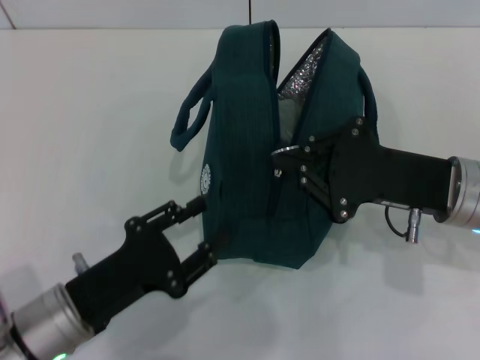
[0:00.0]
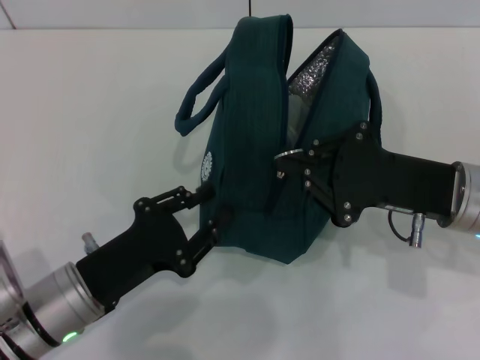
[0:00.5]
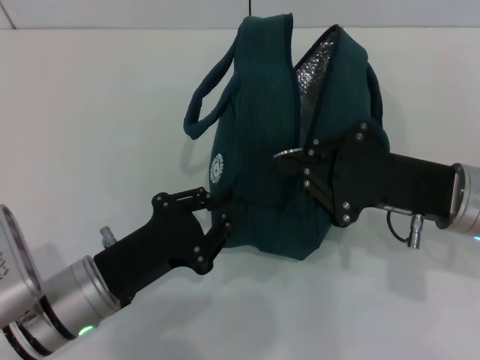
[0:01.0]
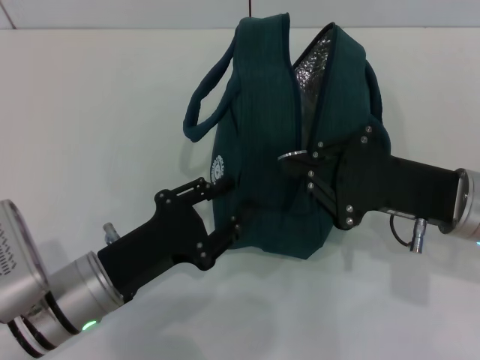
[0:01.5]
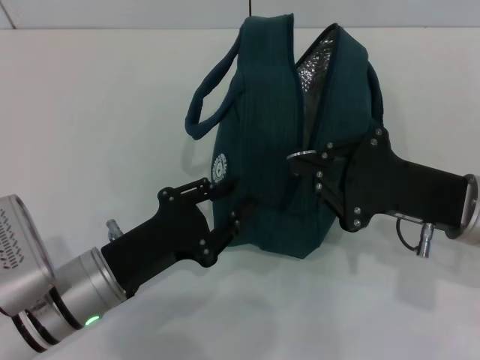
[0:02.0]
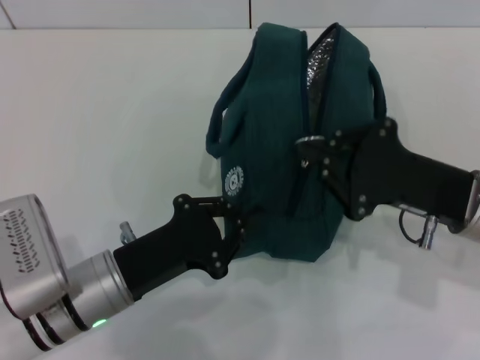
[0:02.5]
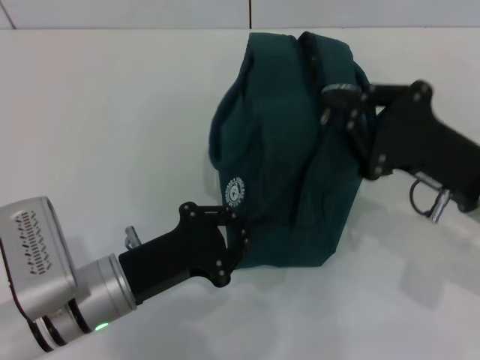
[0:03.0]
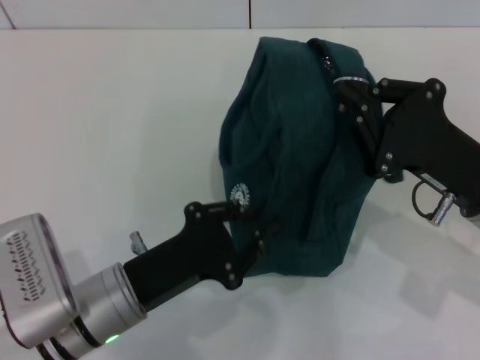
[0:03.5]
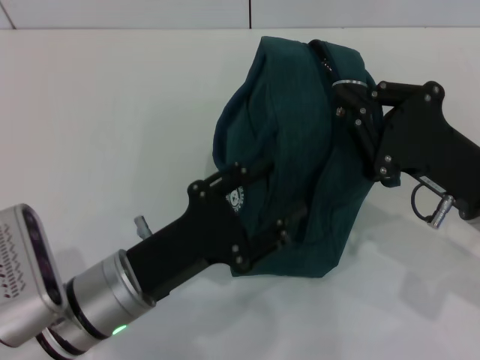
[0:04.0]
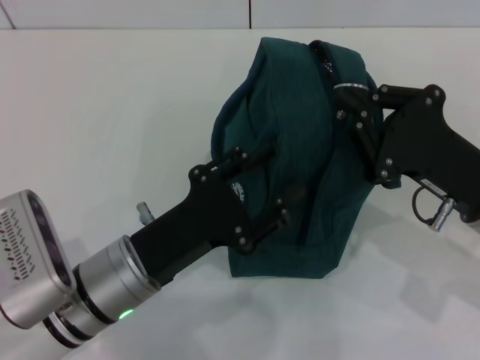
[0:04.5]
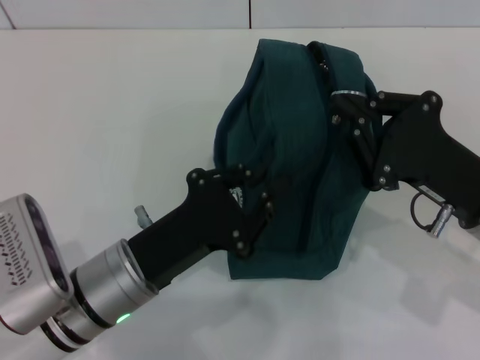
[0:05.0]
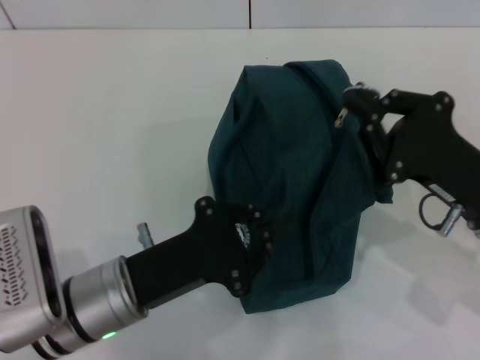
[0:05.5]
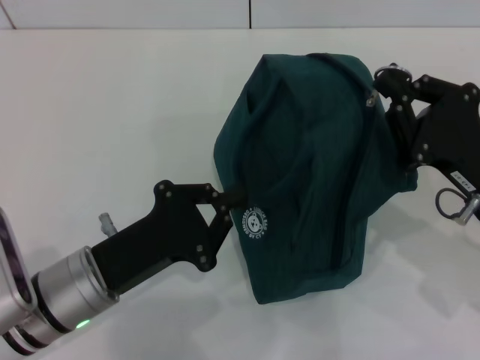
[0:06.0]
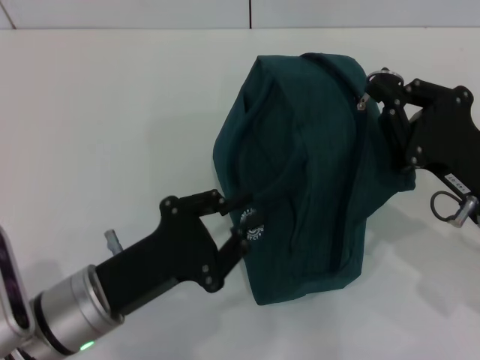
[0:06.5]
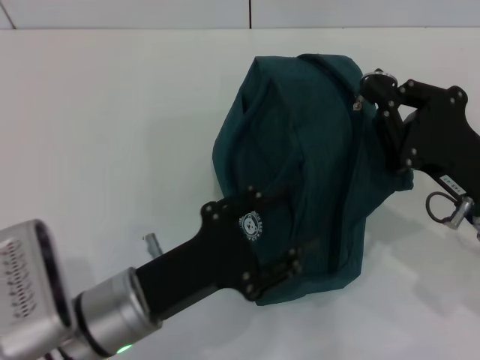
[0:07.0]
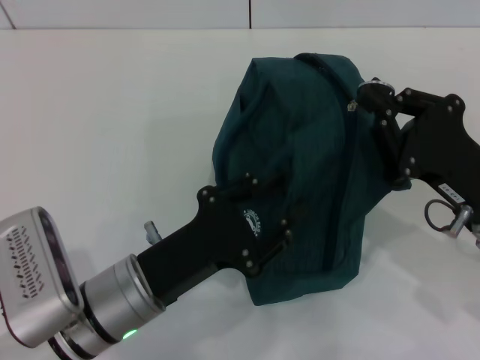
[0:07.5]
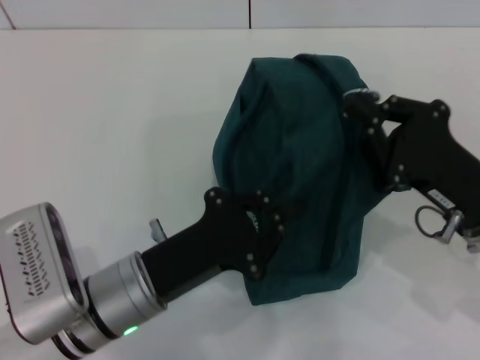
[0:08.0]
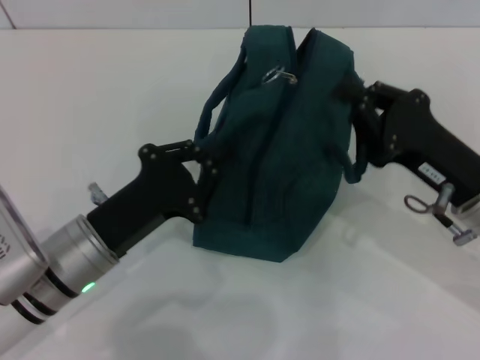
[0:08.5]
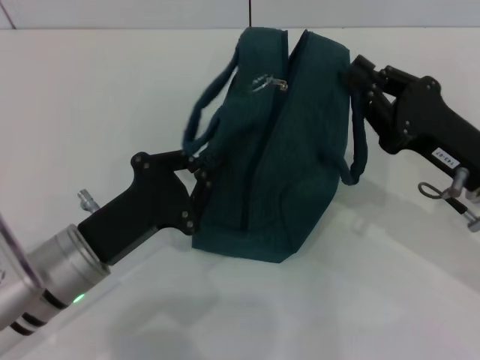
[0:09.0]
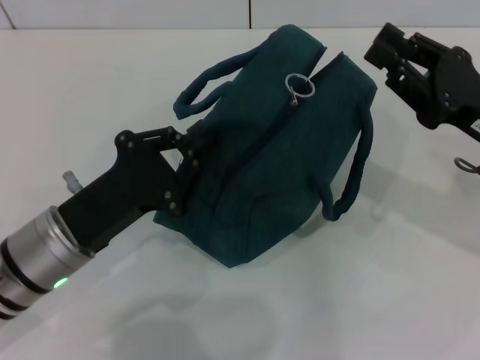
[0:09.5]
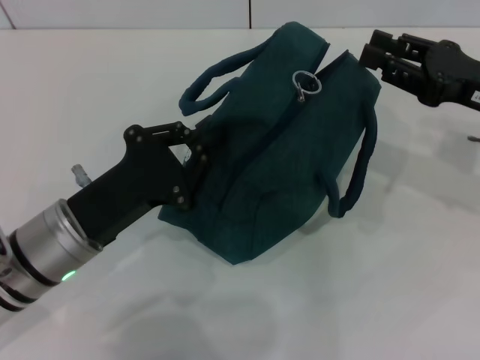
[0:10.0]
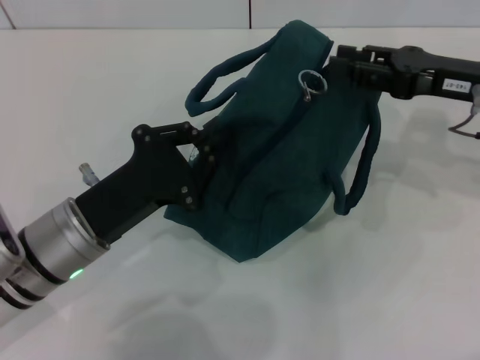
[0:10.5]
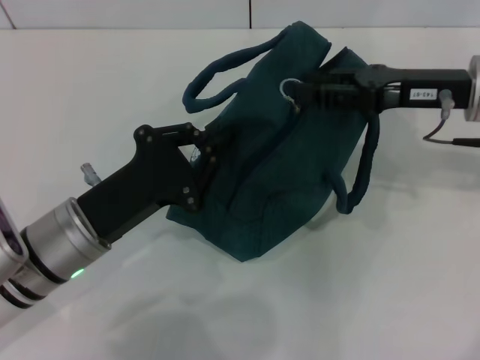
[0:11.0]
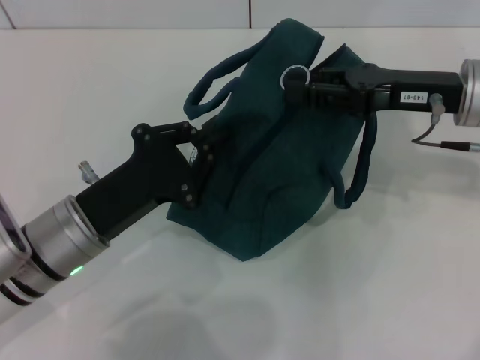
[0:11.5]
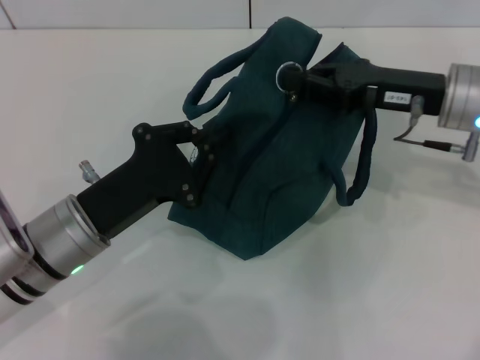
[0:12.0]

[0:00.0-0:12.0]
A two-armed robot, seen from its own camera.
0:00.0 to 0:02.0: The grippers make only small movements.
0:02.0 to 0:04.0: The left gripper closes, then reopens.
0:04.0 to 0:06.0: The left gripper closes up.
0:08.0 to 0:10.0: The right gripper moves forward, upward and to the right, about 10 cm. Meanwhile the left gripper travels to the left by some 5 cm.
0:10.0 to 0:12.0: The right gripper shifts some 5 cm to the left.

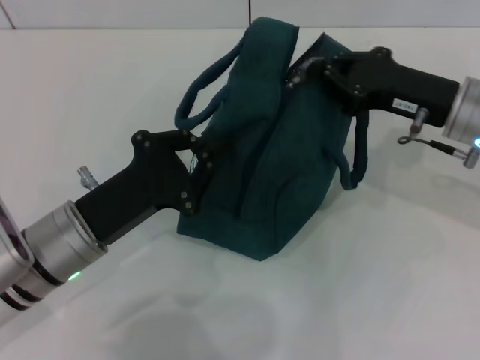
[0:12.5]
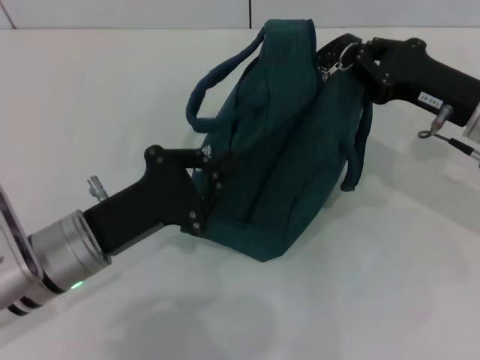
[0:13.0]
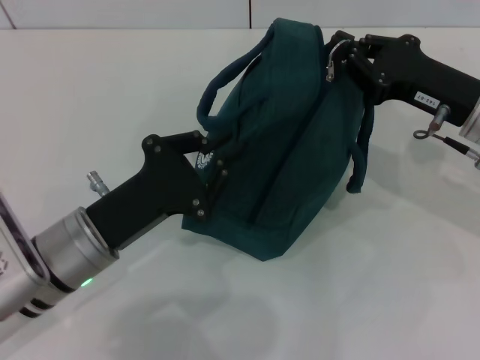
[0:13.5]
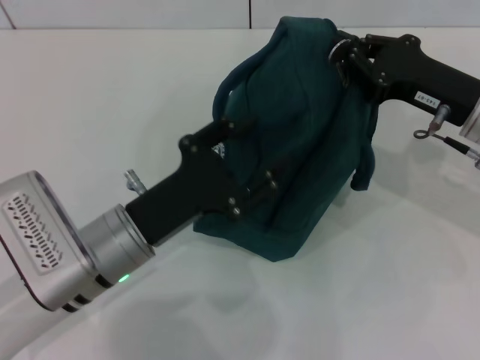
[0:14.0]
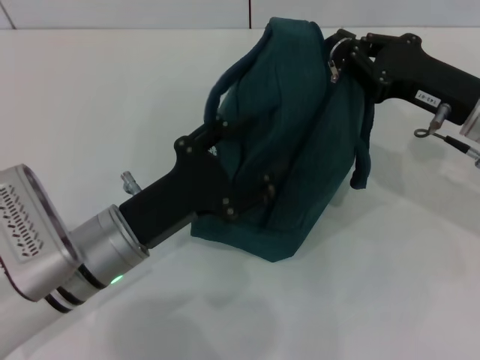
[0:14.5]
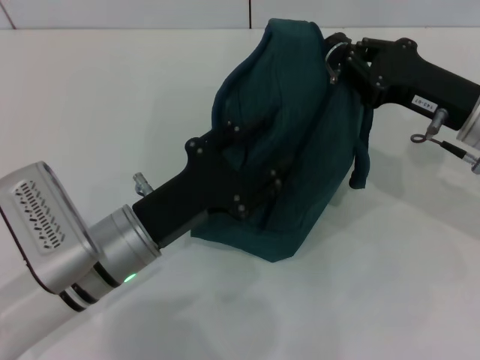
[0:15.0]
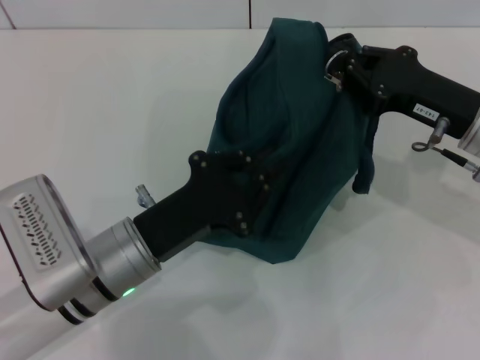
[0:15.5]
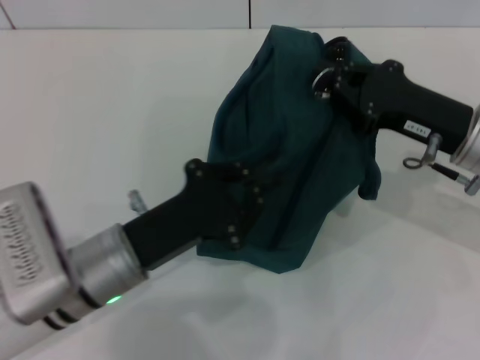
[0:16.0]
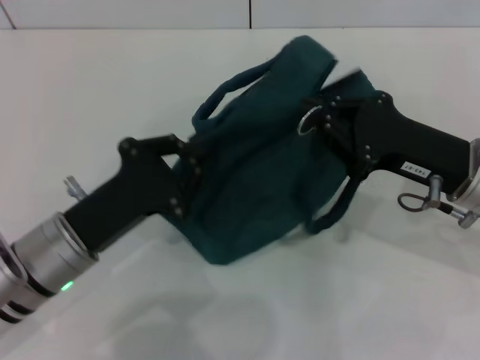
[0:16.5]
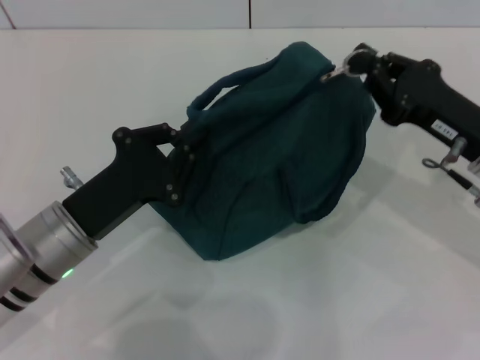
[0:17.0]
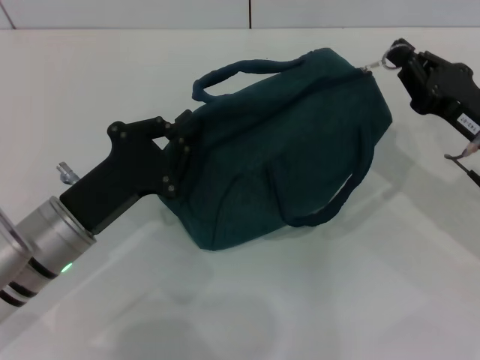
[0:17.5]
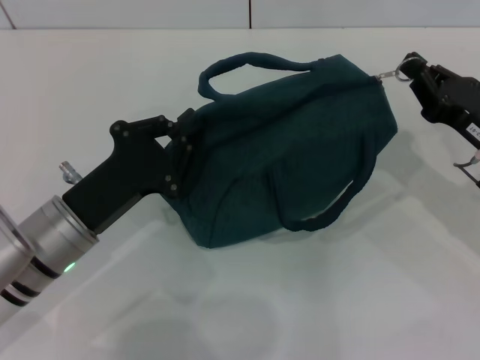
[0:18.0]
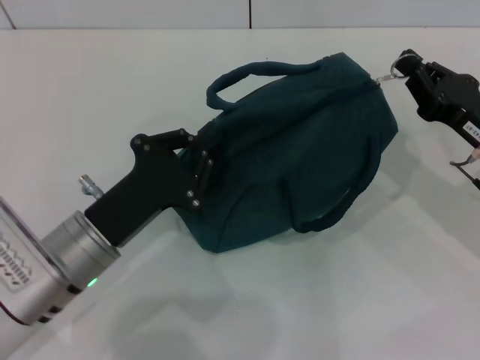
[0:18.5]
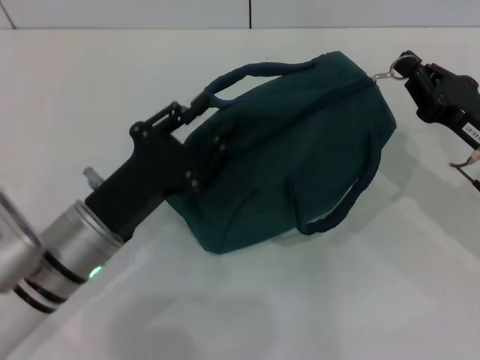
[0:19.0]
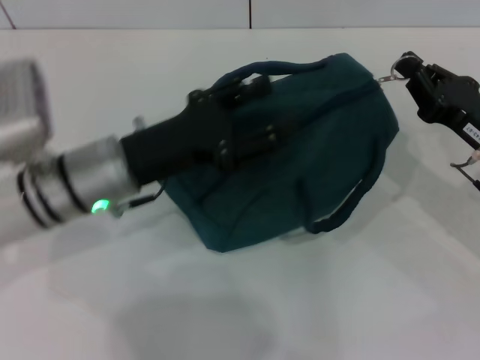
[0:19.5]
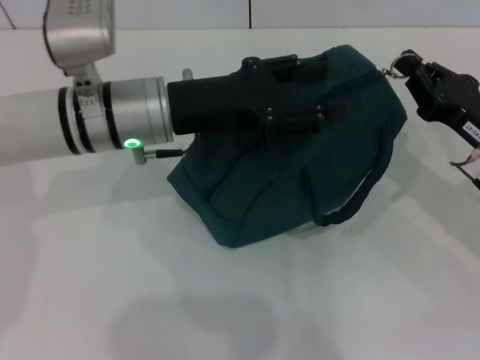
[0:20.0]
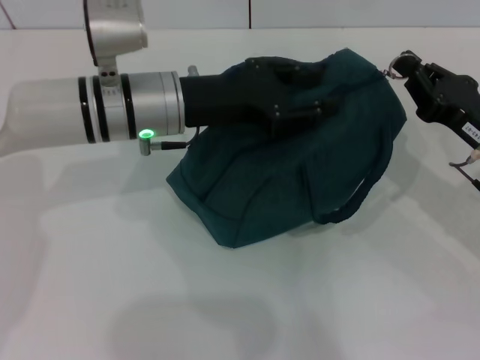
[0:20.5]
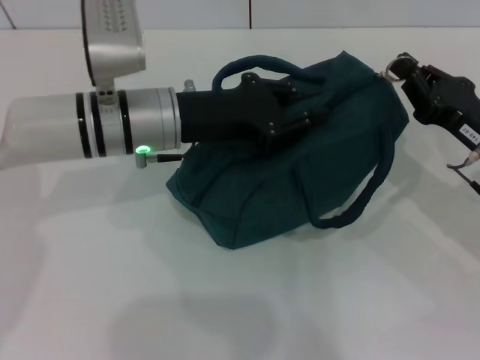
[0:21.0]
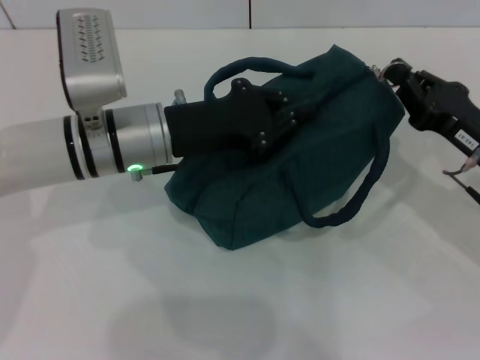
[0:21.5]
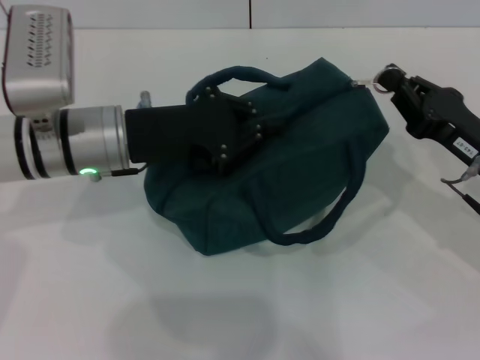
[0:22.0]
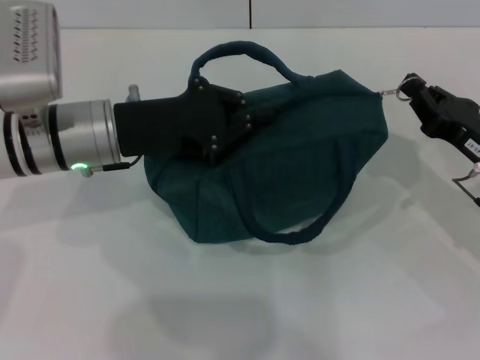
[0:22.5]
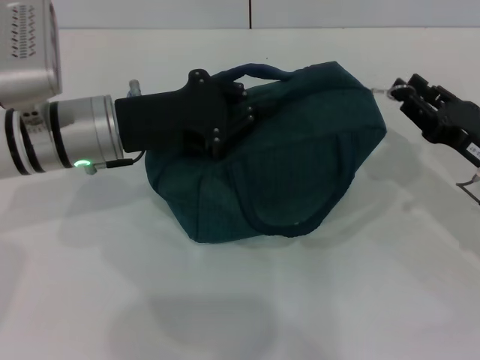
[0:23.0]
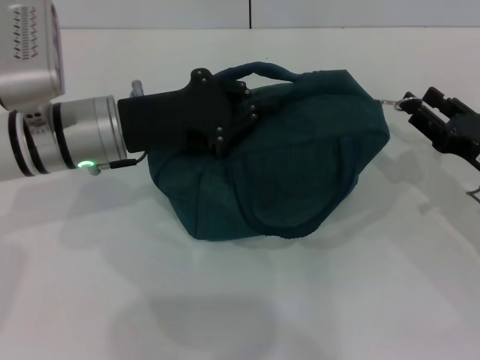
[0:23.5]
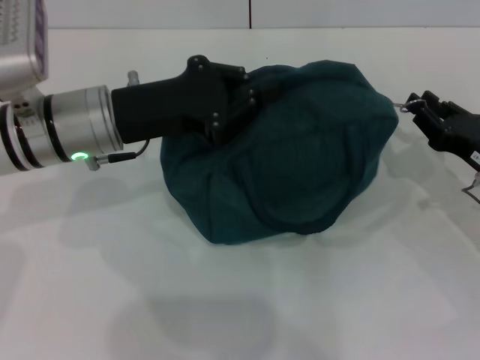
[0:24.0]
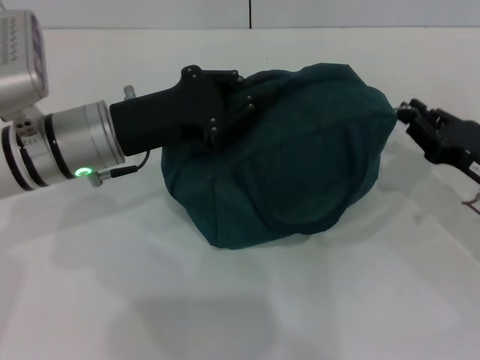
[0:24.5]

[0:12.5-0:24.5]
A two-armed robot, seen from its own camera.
0:12.5 to 0:14.5: The left gripper opens up.
0:14.5 to 0:16.5: The left gripper closes its fingers; the right gripper moves backward, about 5 cm.
0:16.5 to 0:18.5: The right gripper heads to the right, covering about 5 cm.
0:18.5 to 0:20.5: The left gripper heads forward, upward and to the right, covering approximately 15 cm, and opens.
0:20.5 to 0:22.5: The left gripper goes approximately 5 cm to the left, and closes up.
0:22.5 to 0:24.5: The right gripper opens, then closes again.

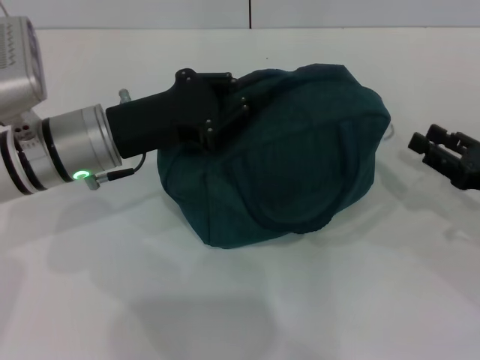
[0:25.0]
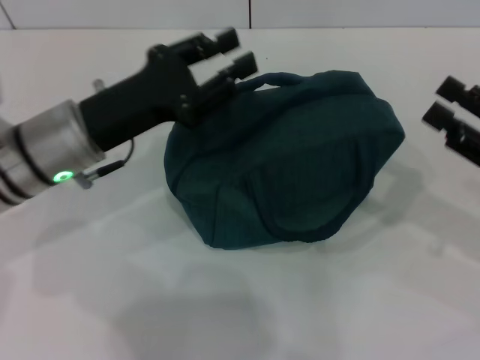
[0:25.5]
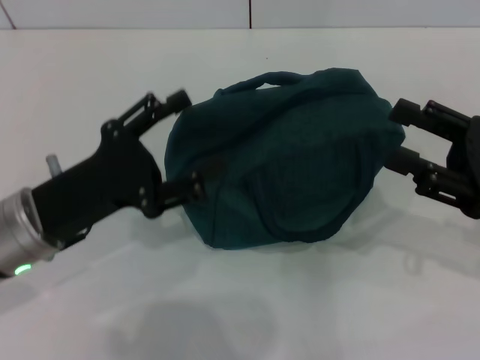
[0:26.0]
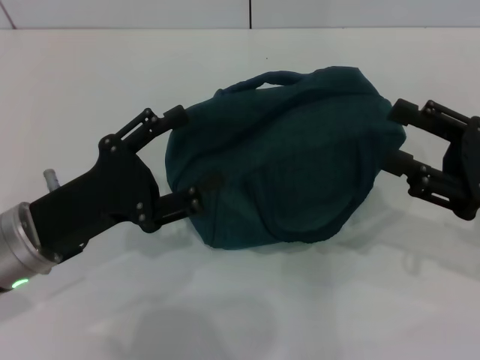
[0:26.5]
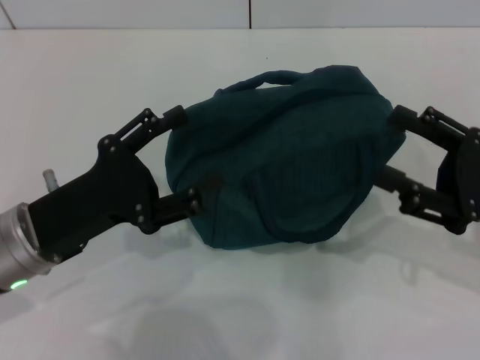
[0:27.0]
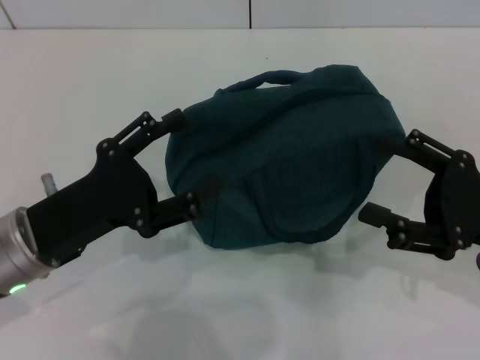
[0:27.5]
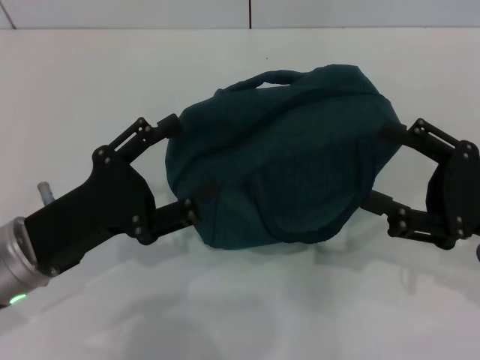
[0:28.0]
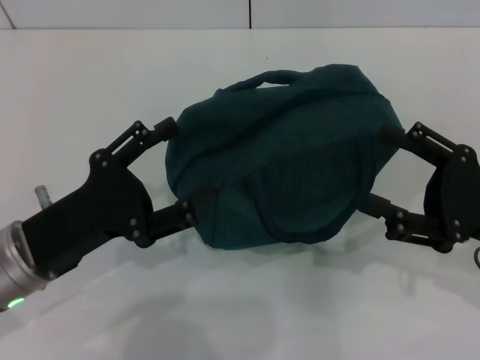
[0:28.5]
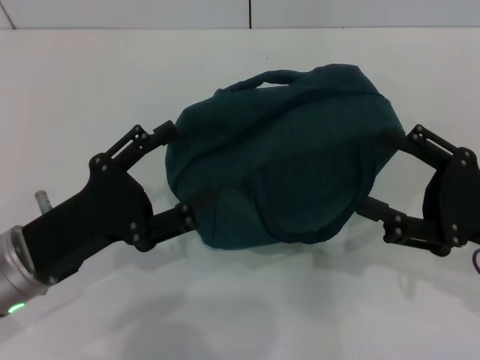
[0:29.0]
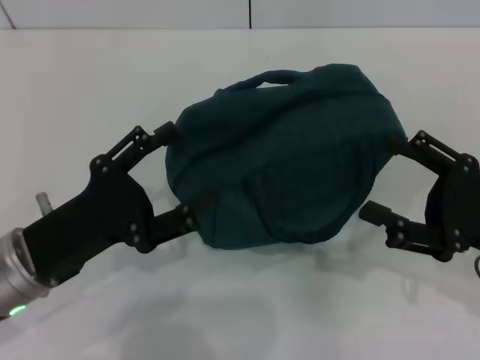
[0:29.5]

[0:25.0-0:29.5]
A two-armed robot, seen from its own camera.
0:25.0 to 0:27.0: The left gripper is displaced backward by some 10 cm, and opens. Meanwhile the right gripper changes place by roughly 5 cm, and opens.
0:27.0 to 0:29.5: The grippers stay close to where they were, moving slightly.
